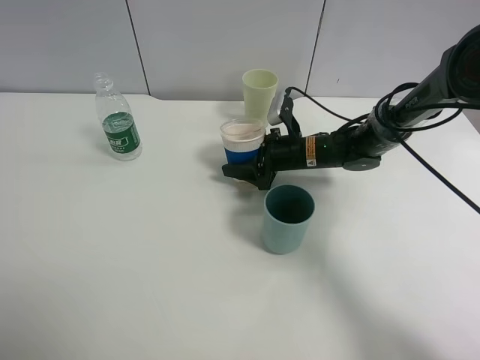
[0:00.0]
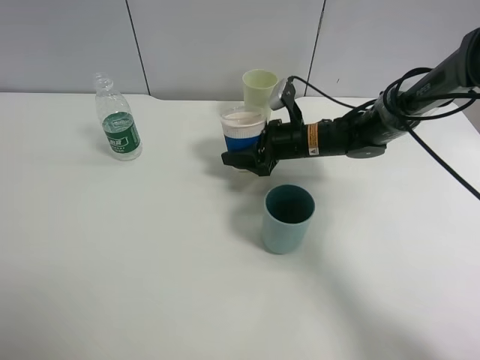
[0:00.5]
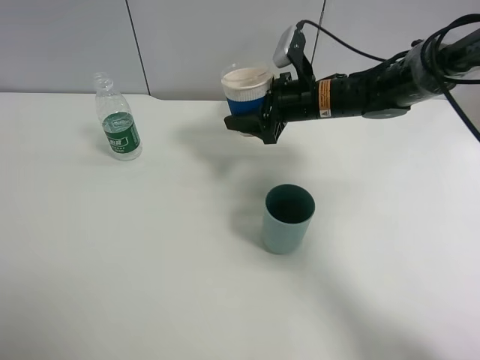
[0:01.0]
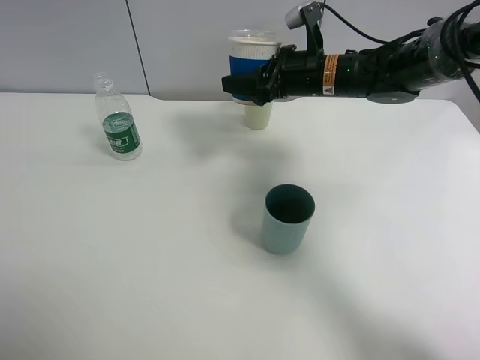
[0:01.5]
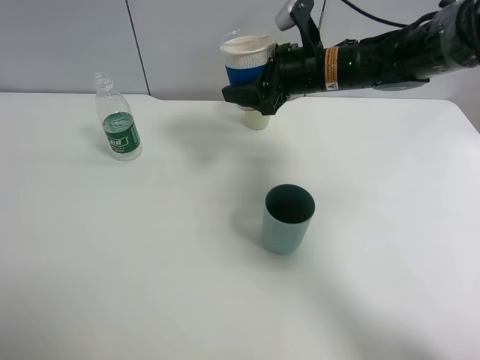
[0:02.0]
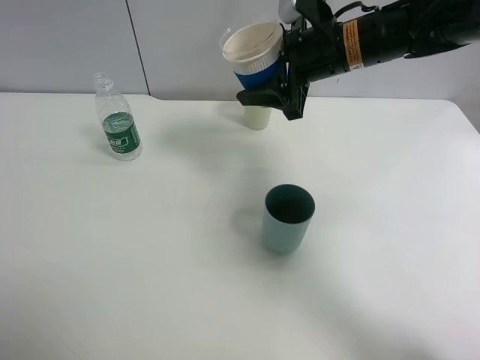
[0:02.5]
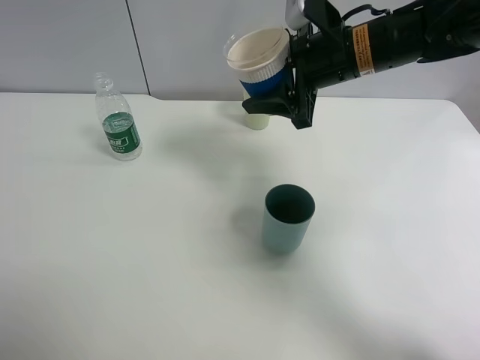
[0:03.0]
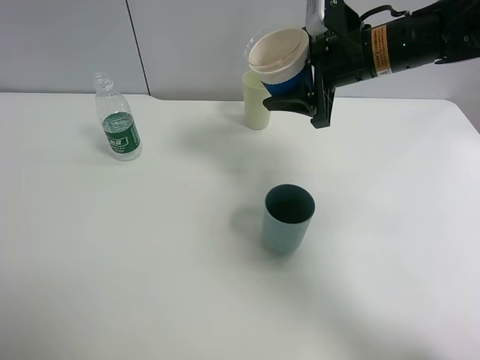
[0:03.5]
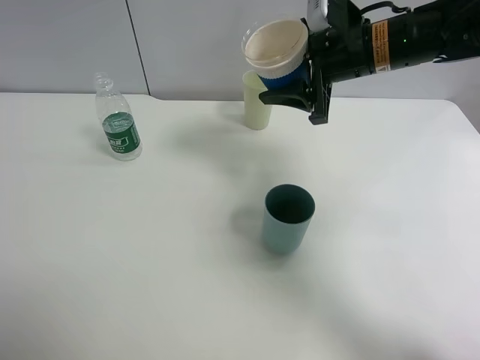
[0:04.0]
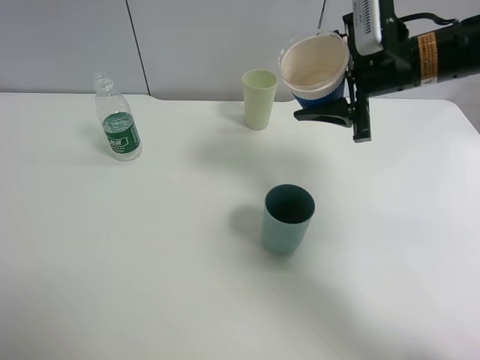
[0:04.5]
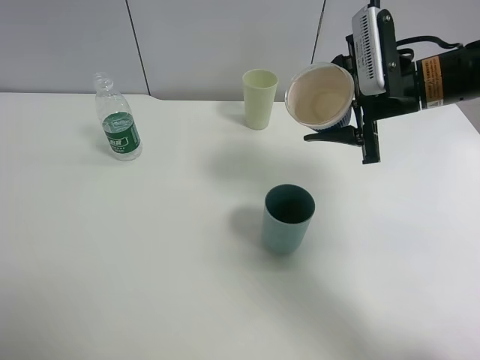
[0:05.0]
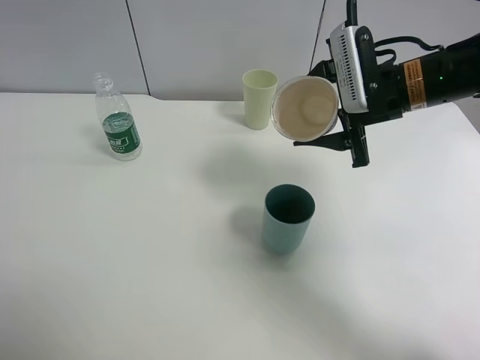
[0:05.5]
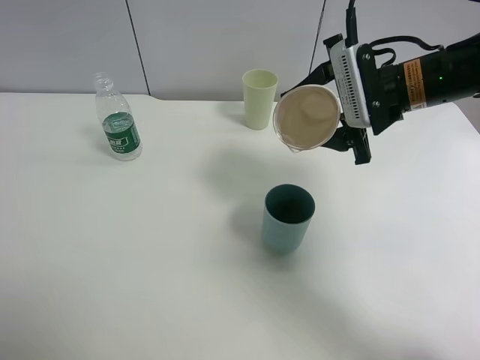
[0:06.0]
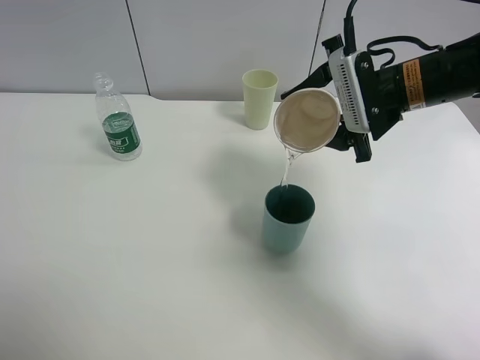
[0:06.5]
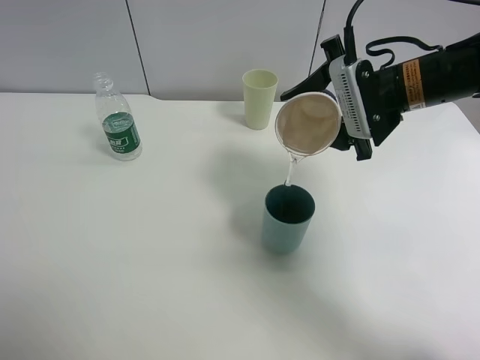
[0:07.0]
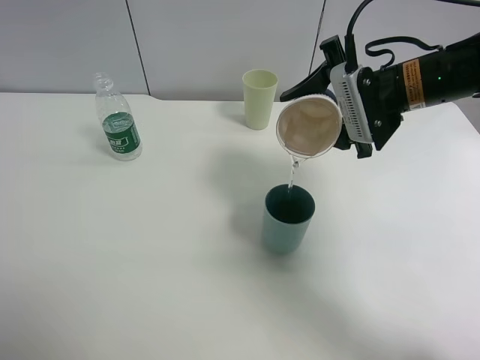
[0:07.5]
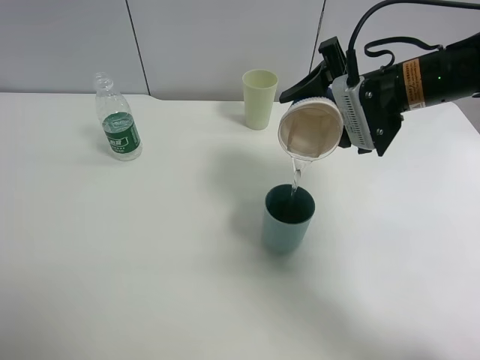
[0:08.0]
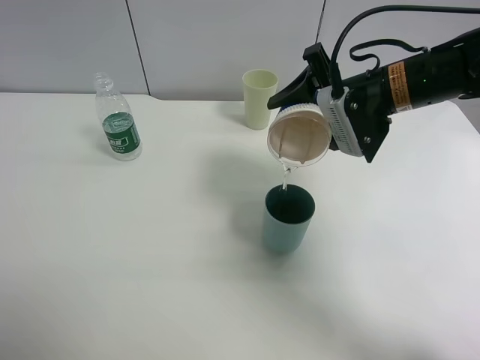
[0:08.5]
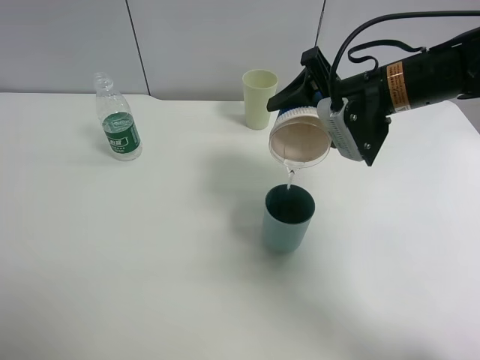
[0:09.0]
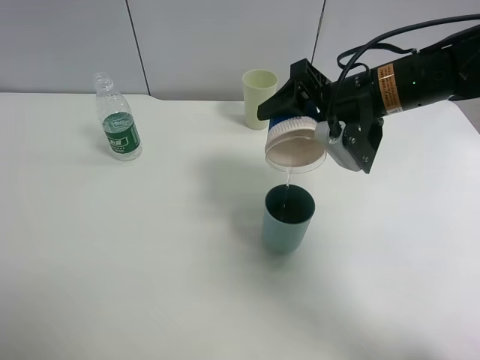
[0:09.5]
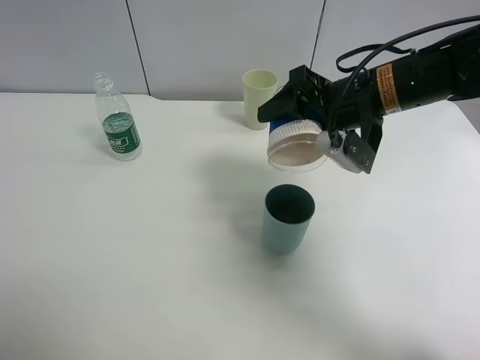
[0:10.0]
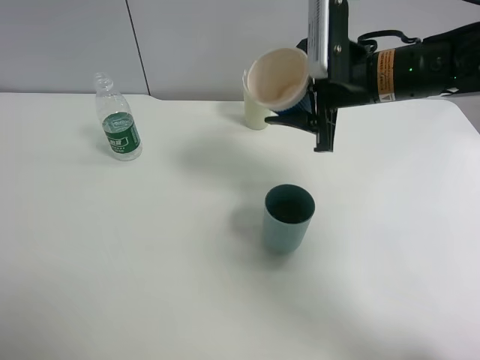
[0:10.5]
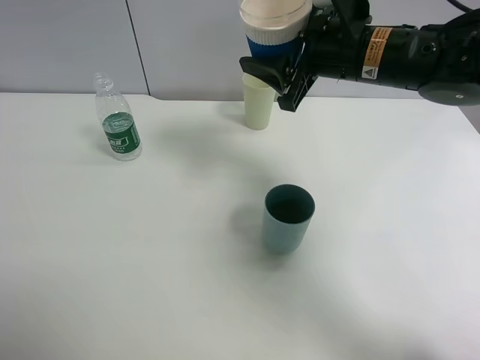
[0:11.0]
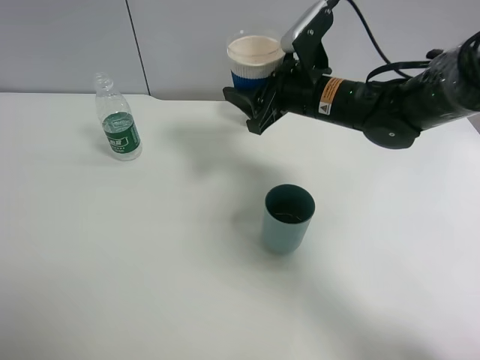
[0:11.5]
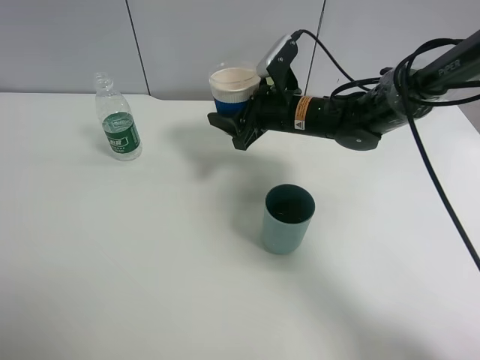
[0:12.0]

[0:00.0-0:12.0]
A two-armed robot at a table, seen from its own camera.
Task of the whole recording: use a clamp to hold the bottle of the drink, pour the beverage into a random cup, then clamp the cup containing the drink and pour the drink into another random cup.
Step, 0:01.0 to 0:10.0: Pour water into the blue plastic cup with right gripper.
0:00.0 to 0:02.0: The right gripper heads upward, covering approximately 15 cm.
0:02.0 to 0:04.0: The right gripper moves approximately 5 cm.
0:04.0 to 0:06.0: The right gripper moves approximately 5 cm.
0:06.0 to 0:08.0: There are only small adjustments of the grippers.
0:10.0 to 0:12.0: The right gripper travels downward, forward and to the left by approximately 15 cm.

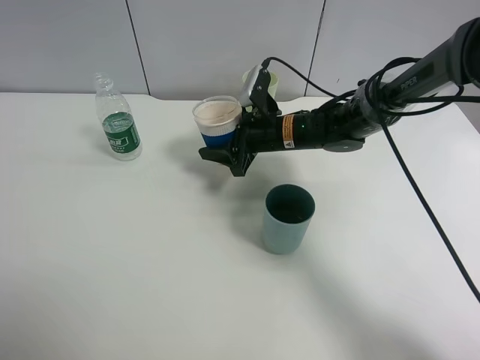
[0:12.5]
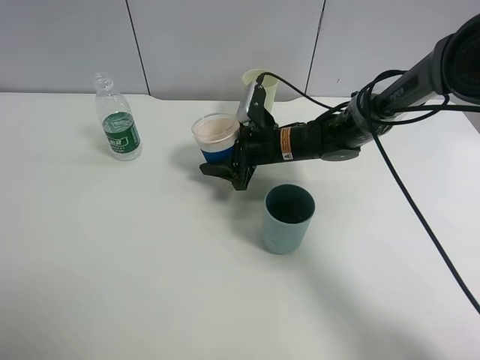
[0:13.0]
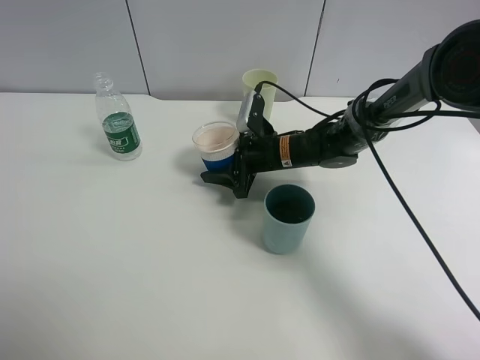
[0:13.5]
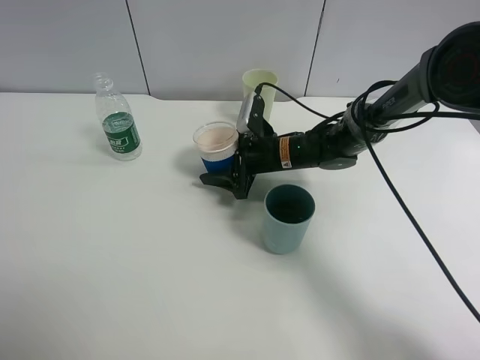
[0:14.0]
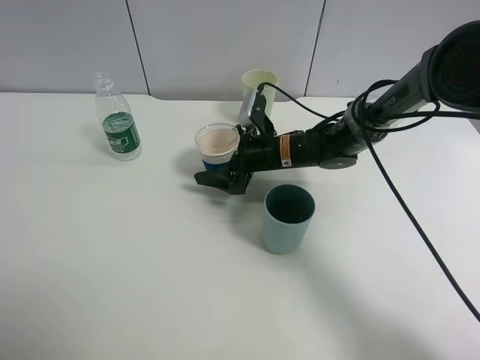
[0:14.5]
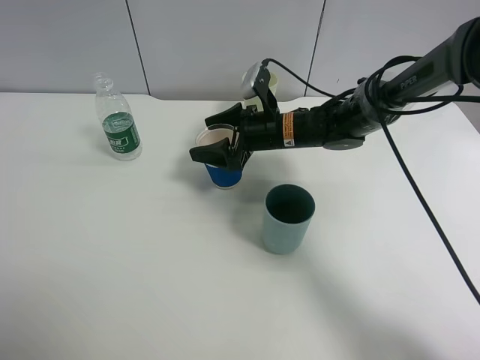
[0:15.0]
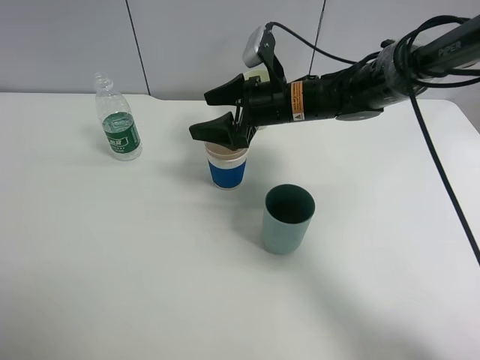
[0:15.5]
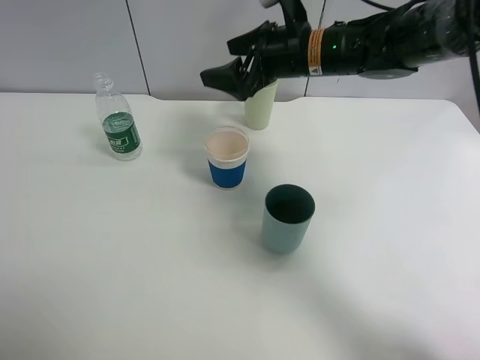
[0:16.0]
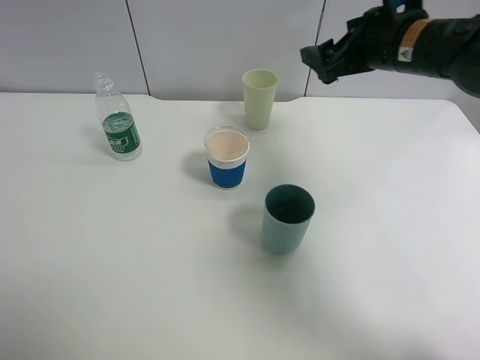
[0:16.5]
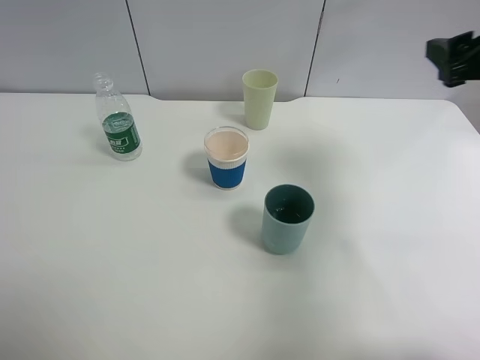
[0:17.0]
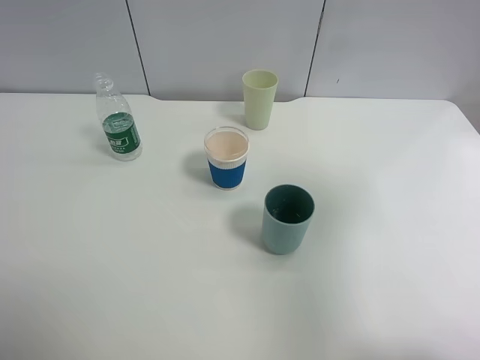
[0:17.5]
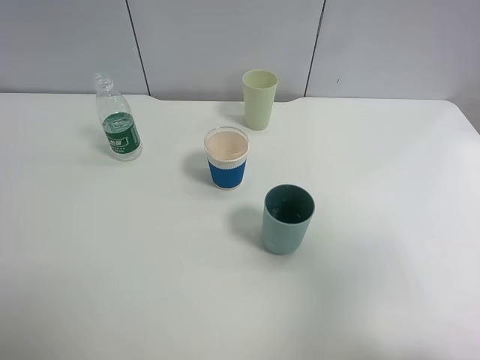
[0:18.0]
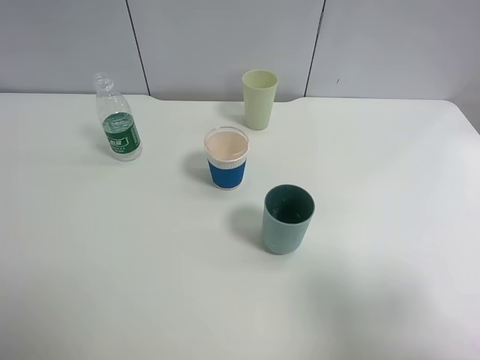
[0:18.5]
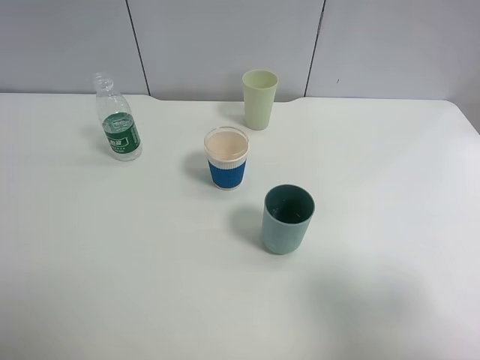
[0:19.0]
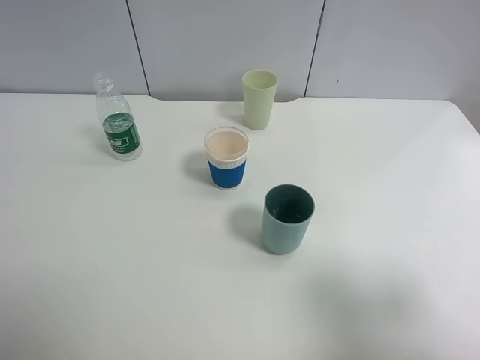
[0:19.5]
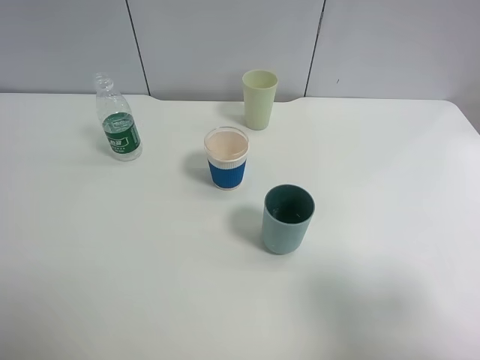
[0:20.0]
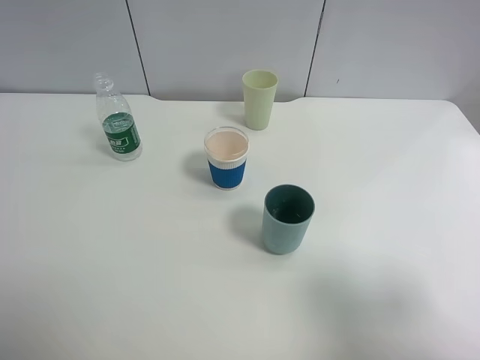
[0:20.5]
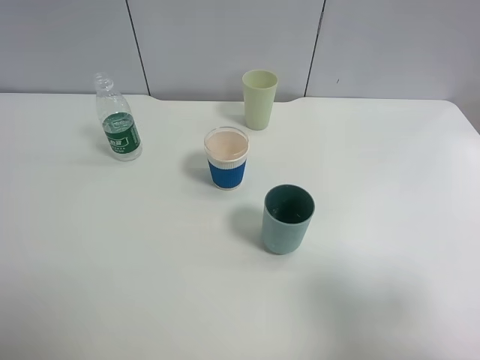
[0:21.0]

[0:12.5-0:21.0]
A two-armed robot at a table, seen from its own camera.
Task of the whole recording: use a clamp to hold the bottle of the drink, pour the beverage into a random cup, then clamp the cup containing the drink and pour the drink into another random cup.
0:12.5 to 0:14.5: The right gripper opens.
0:14.5 to 0:16.5: The right gripper heads upward and to the right, covering approximately 25 cm.
0:16.5 to 0:19.0: The right gripper heads backward, covering about 35 cm, and opens.
0:19.0 to 0:21.0: Neither gripper changes place.
